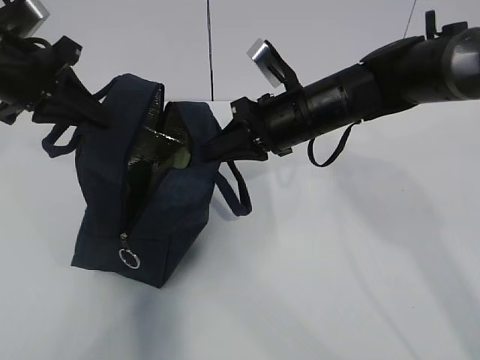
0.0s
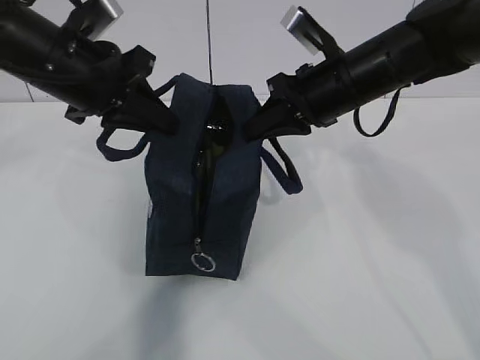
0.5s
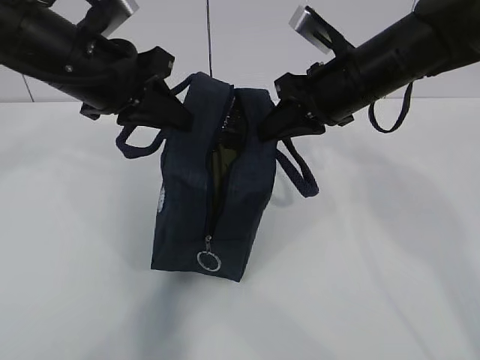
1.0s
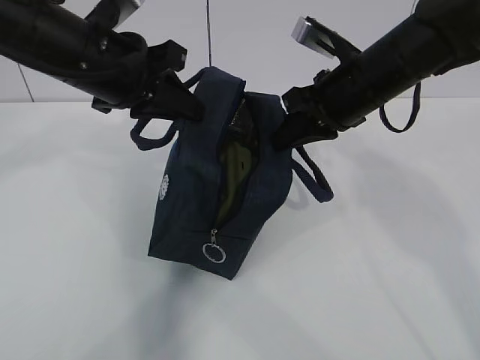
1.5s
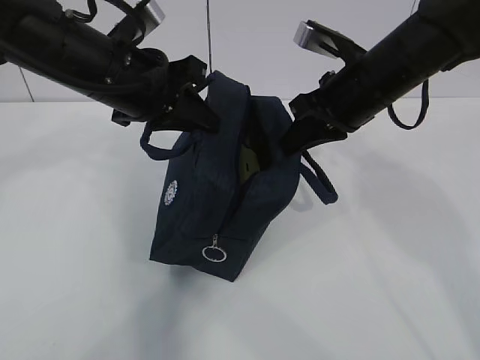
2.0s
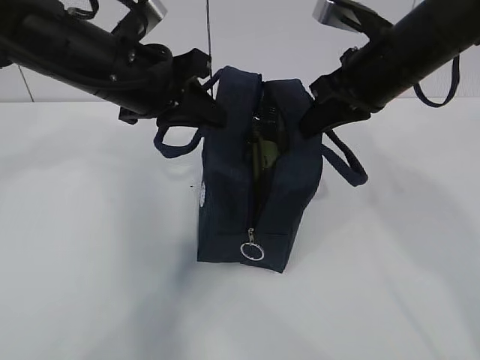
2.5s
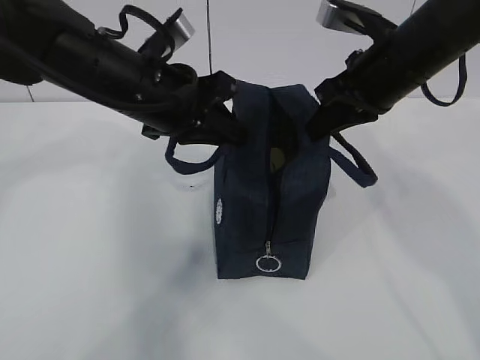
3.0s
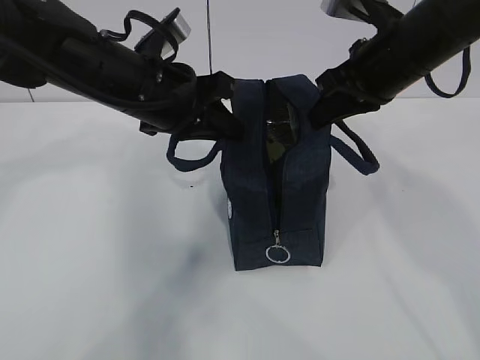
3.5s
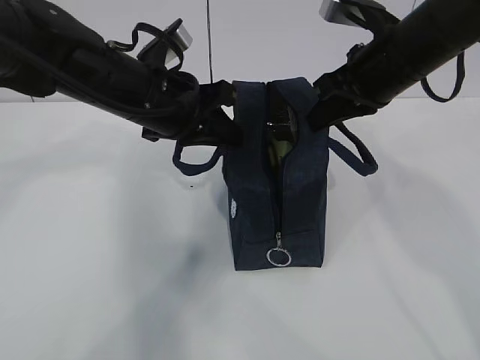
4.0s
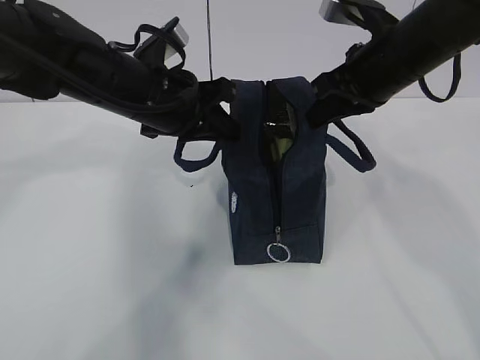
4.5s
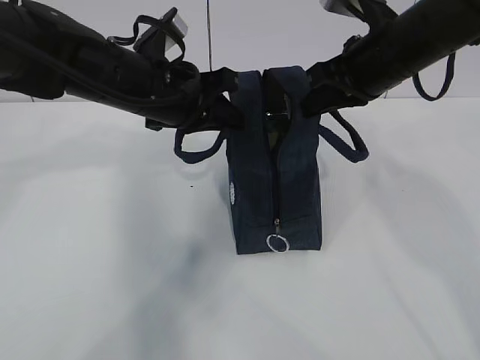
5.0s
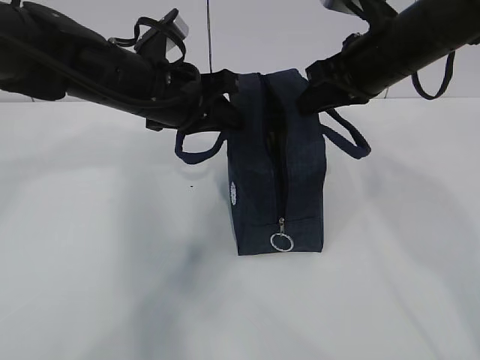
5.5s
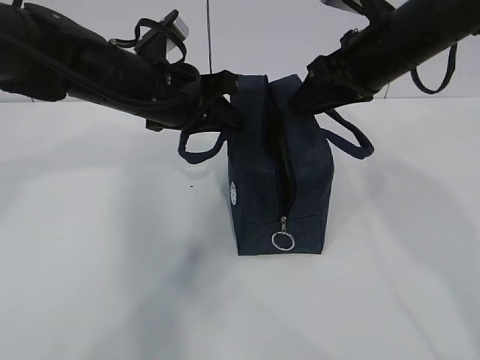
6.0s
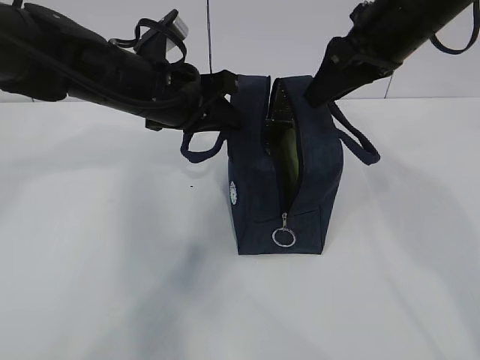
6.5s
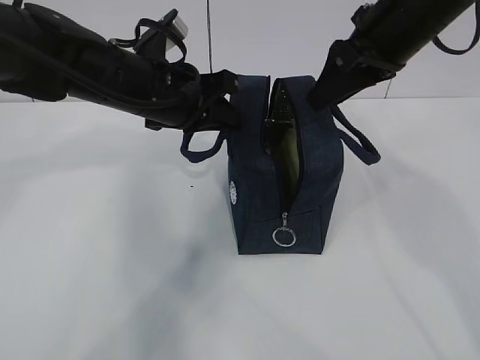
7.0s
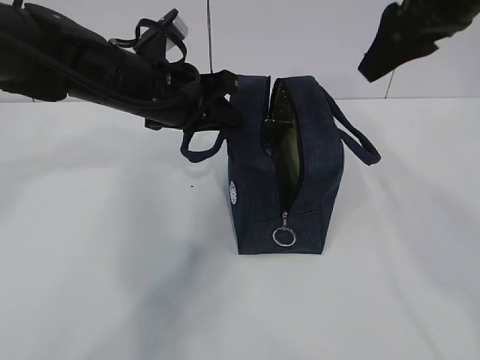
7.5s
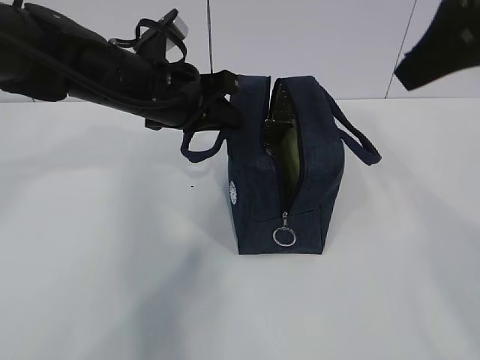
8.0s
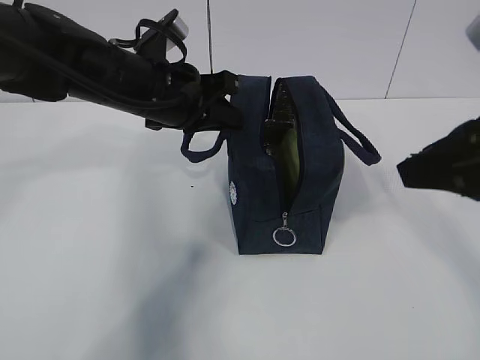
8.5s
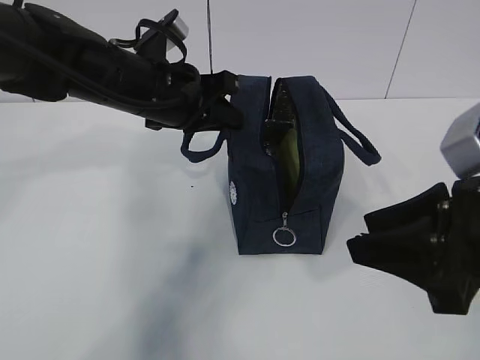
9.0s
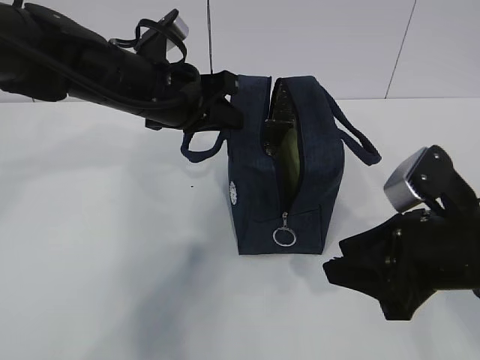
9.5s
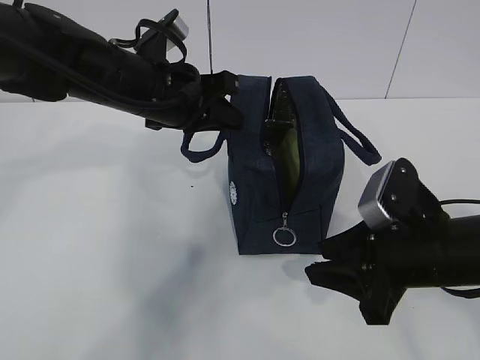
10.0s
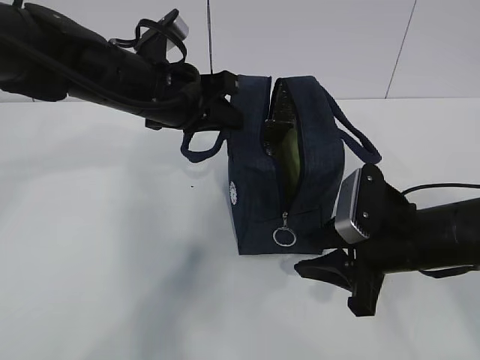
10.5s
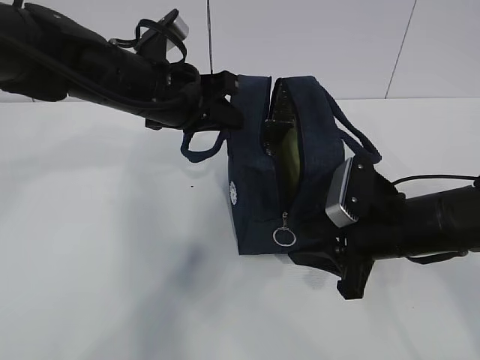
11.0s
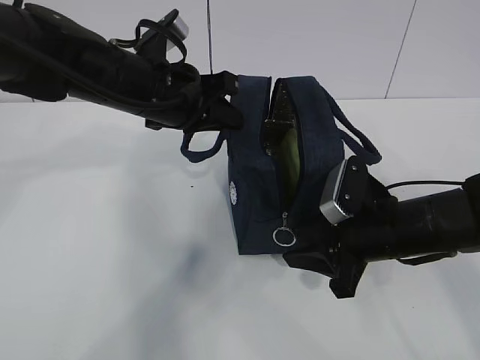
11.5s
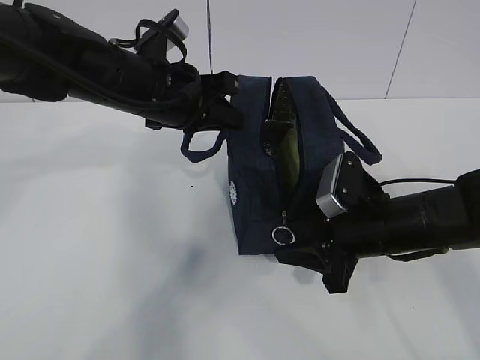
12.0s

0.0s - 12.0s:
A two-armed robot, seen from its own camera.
Step, 0.0s - 11.5s: Grab the lunch bag with your left hand.
0.0s - 2.0s: The left gripper shifts roughly 10 cm to the right. Meanwhile the right gripper is displaced to the right by approximately 5 cm.
2.0s - 4.0s: The grippers stay close to where they were, moving slightly.
4.0s - 6.0s: The right gripper opens its fingers.
6.0s - 8.0s: The right gripper travels backward and upward by roughly 15 cm.
8.0s - 10.0s: The right gripper heads downward, covering some 25 cm.
10.0s - 12.0s: The right gripper heads forward, covering roughly 5 cm.

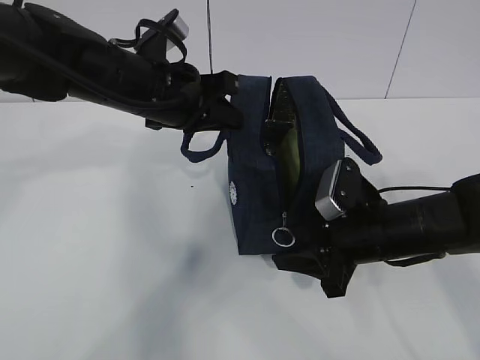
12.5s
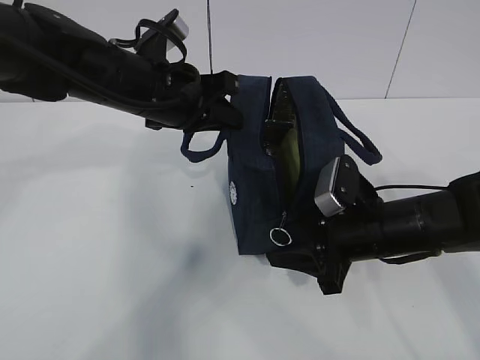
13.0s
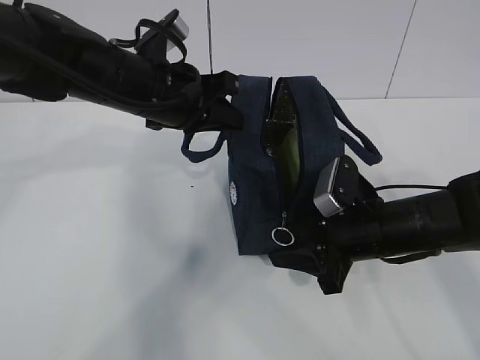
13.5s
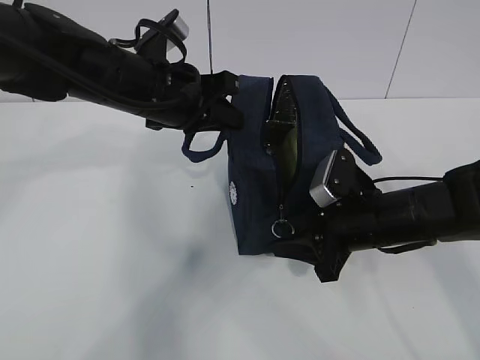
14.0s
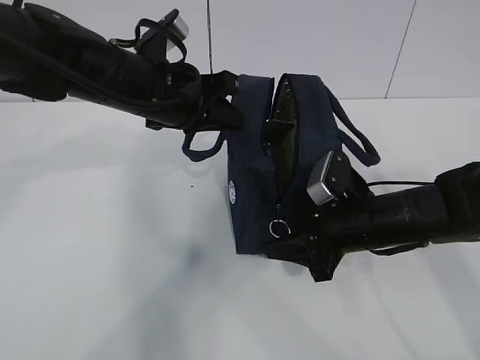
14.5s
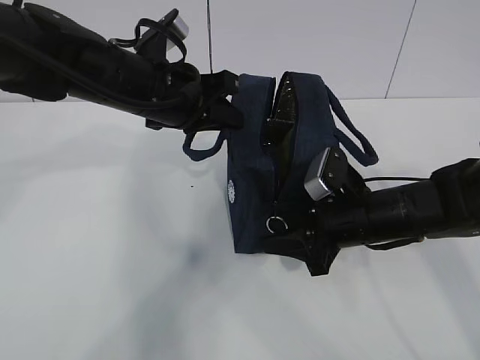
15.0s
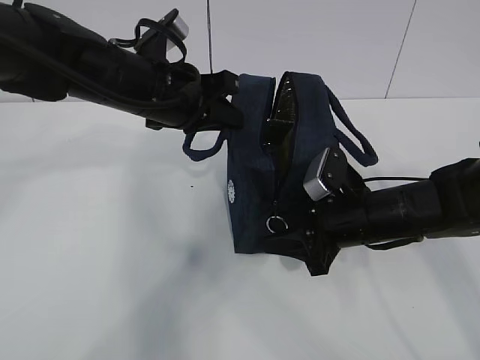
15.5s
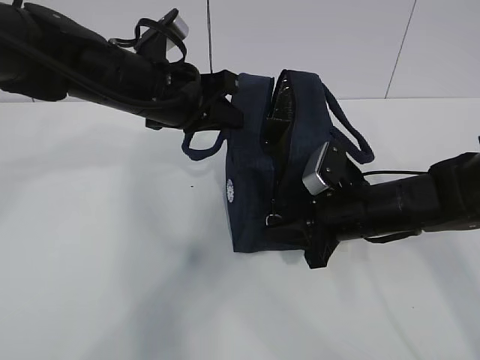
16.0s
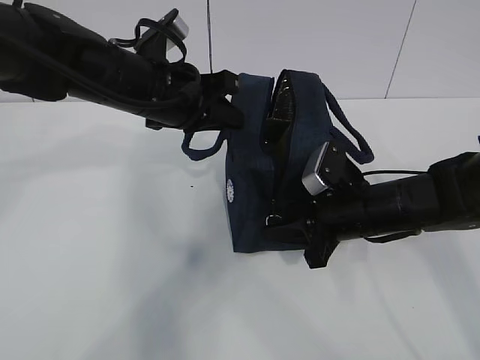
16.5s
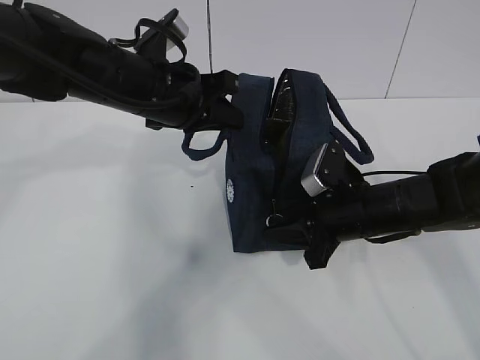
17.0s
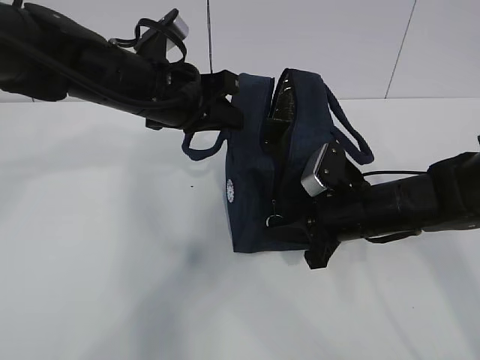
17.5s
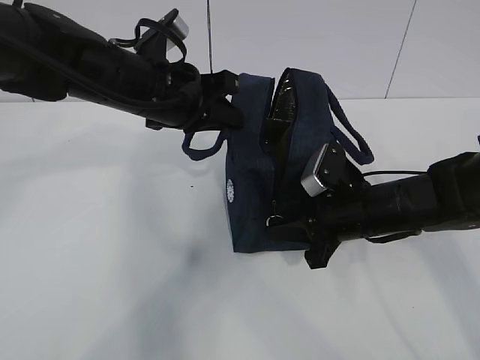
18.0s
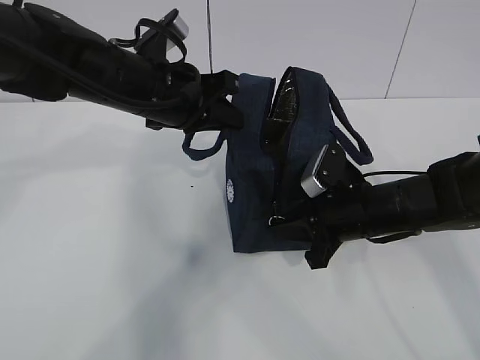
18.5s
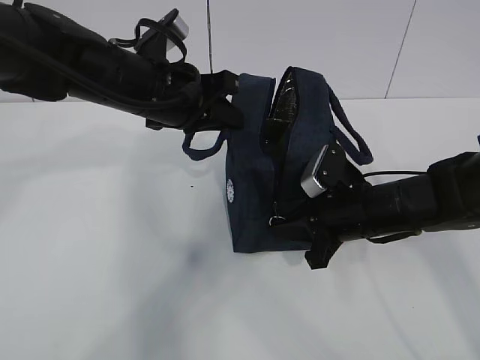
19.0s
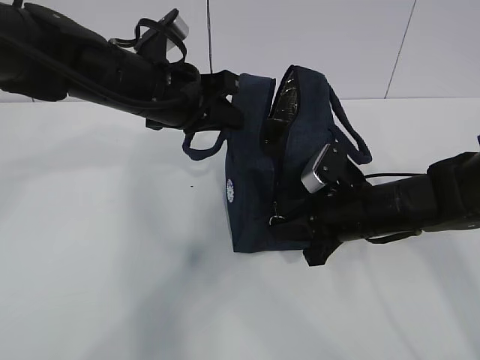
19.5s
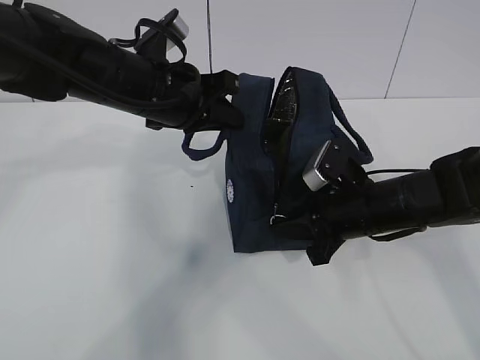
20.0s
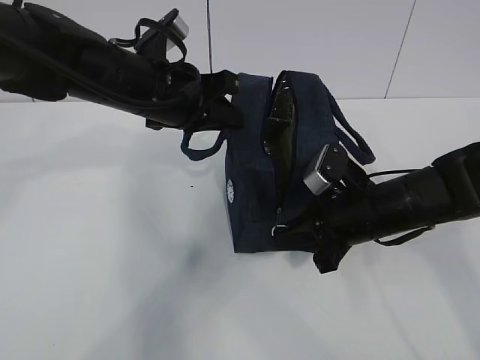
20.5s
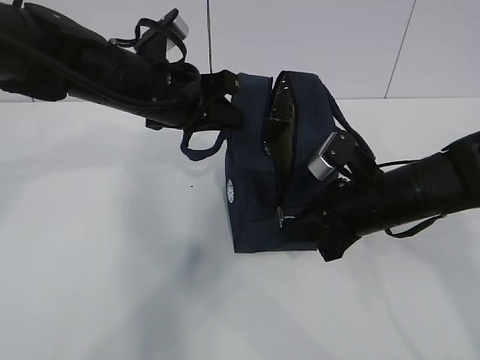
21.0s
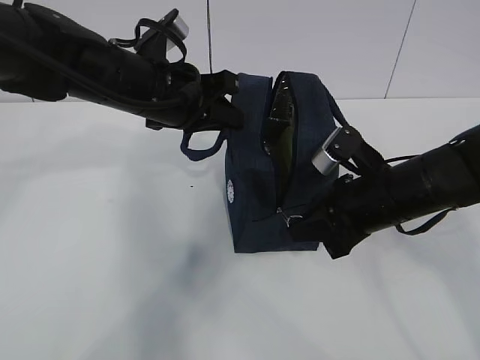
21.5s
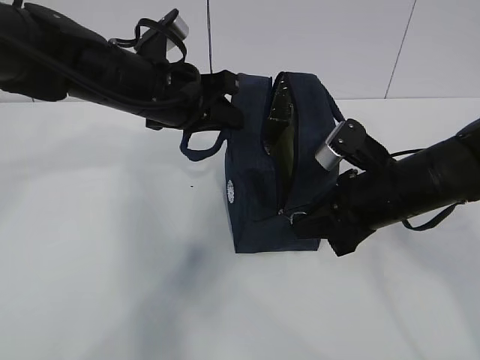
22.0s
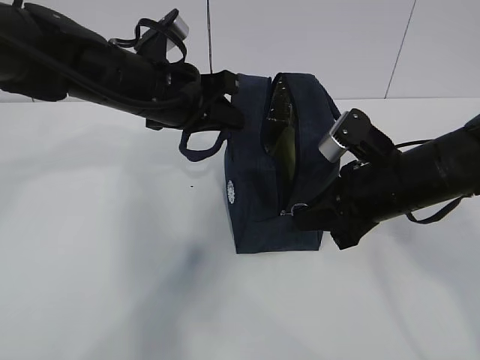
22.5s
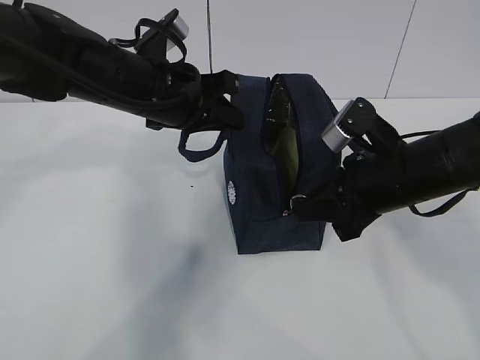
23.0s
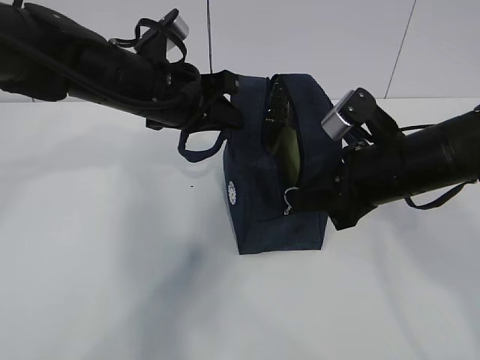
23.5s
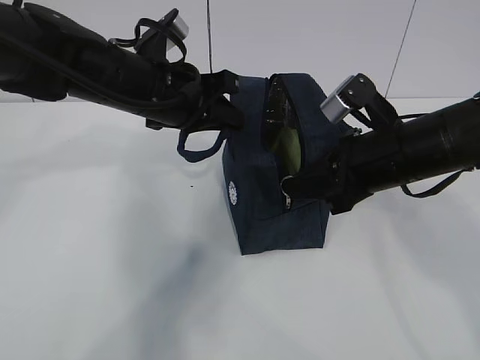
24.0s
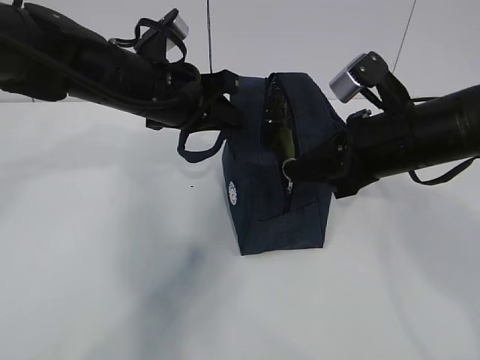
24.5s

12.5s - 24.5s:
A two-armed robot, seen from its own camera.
12.5s - 14.5s: The grippers make only small movements.
14.5s - 16.5s: Both grippers stay put.
16.5s - 18.5s: Neither gripper changes place.
18.5s - 20.5s: The grippers make only small movements.
20.5s - 22.5s: The right gripper travels upward by some 5 cm.
22.5s - 24.5s: The right gripper goes roughly 5 cm upward.

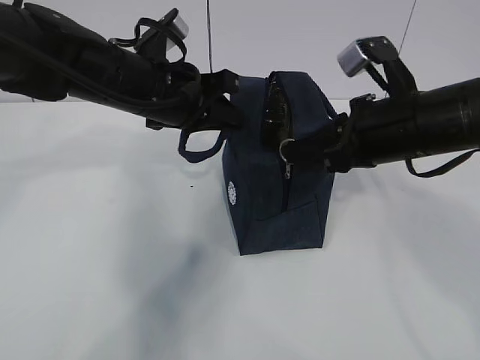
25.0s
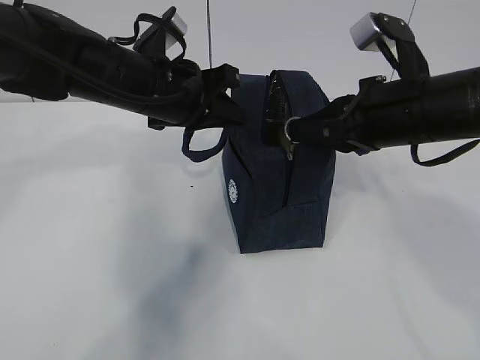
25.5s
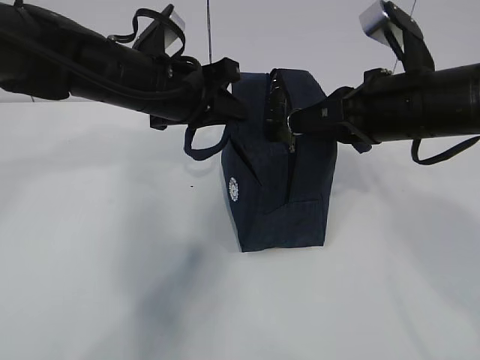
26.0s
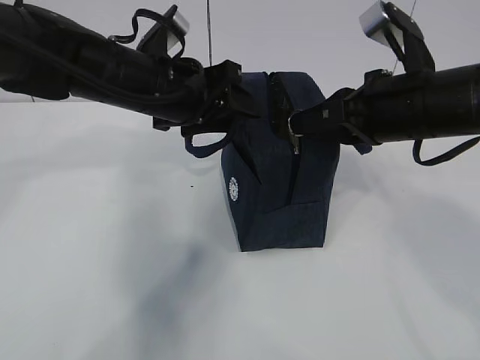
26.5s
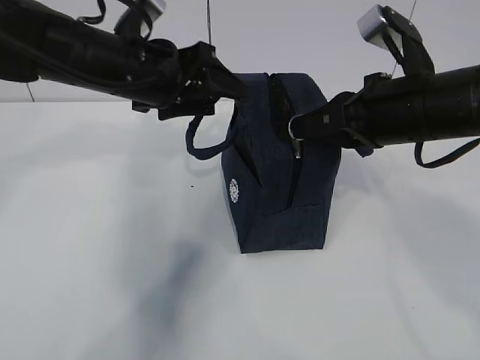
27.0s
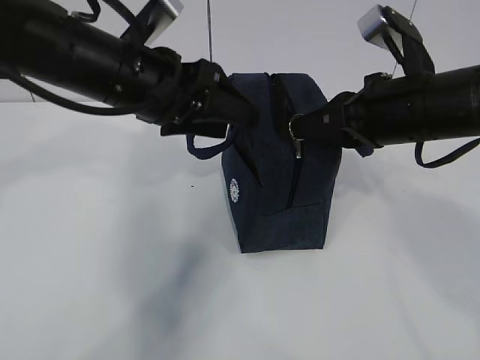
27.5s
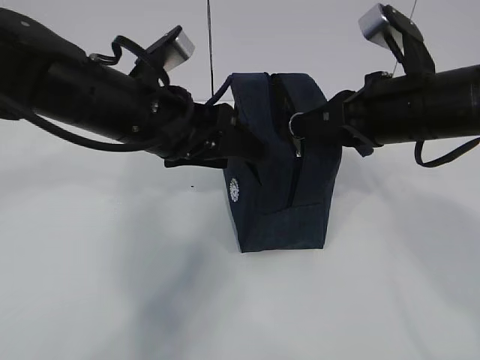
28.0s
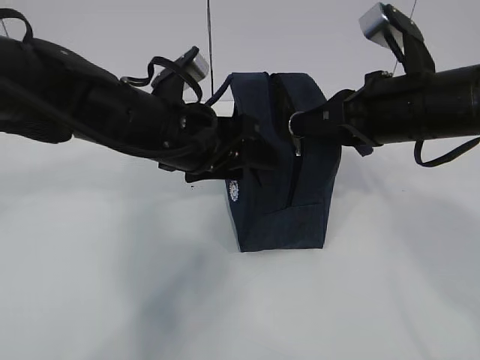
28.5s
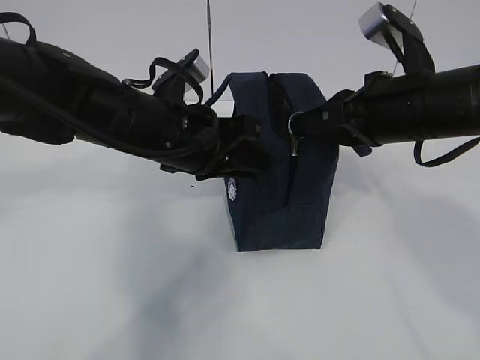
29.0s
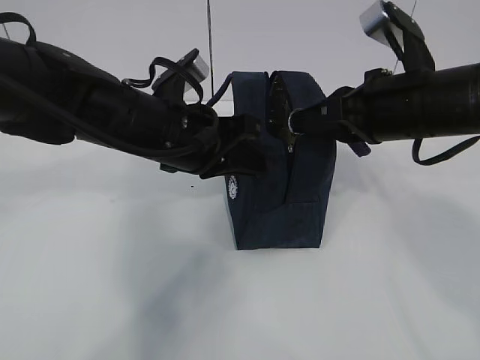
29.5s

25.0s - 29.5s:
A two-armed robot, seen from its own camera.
25.0s - 27.0s: The left gripper opens up.
27.0s - 29.5s: The left gripper travels backward by some 5 cm, and closes its fingers.
